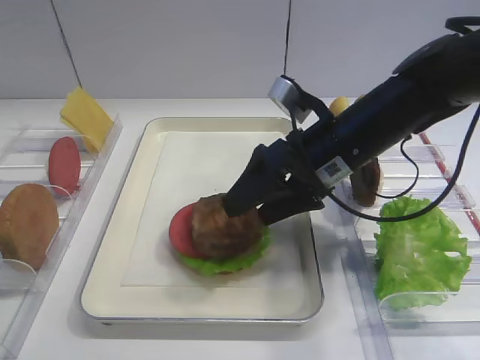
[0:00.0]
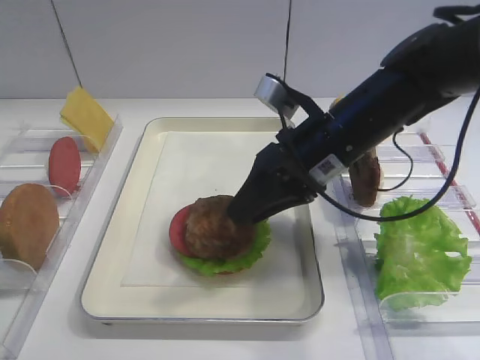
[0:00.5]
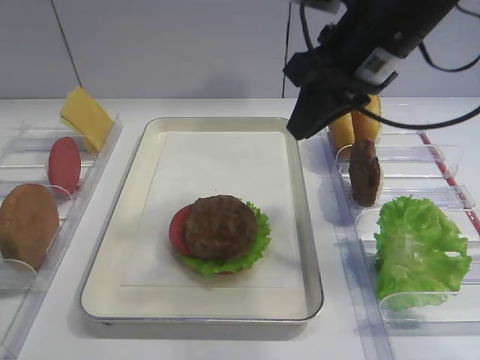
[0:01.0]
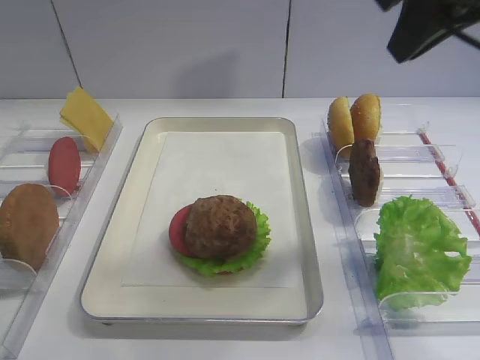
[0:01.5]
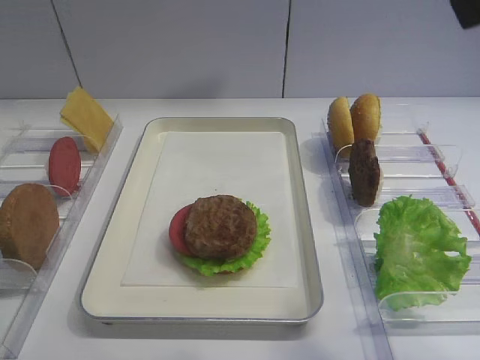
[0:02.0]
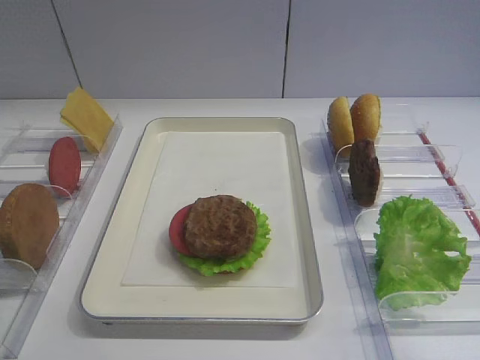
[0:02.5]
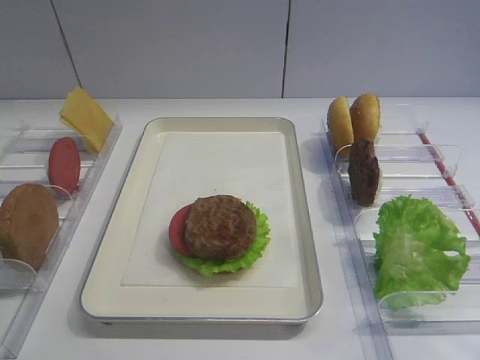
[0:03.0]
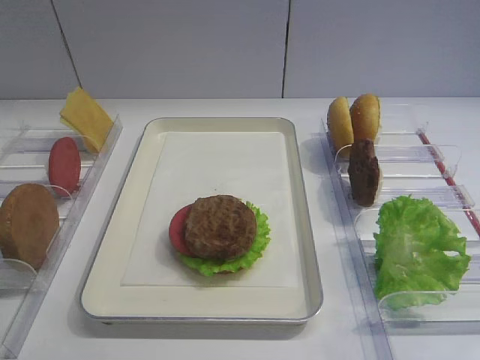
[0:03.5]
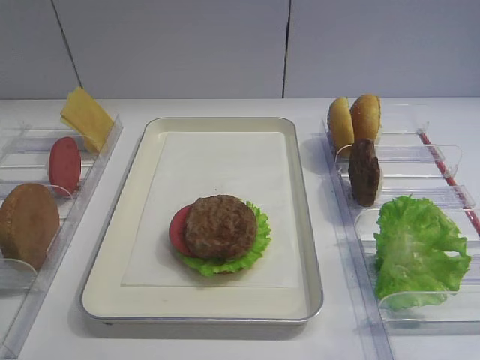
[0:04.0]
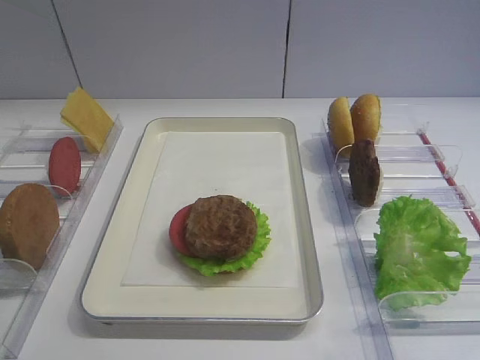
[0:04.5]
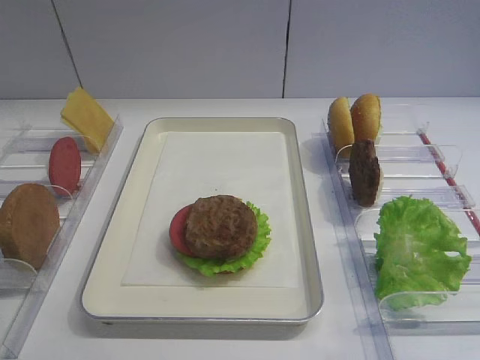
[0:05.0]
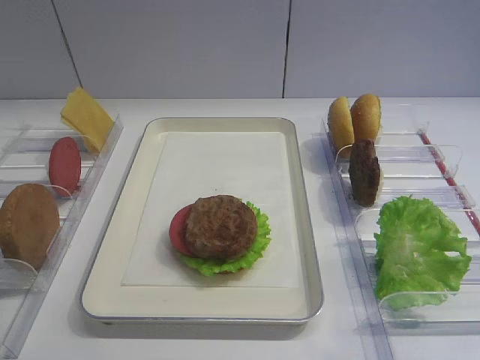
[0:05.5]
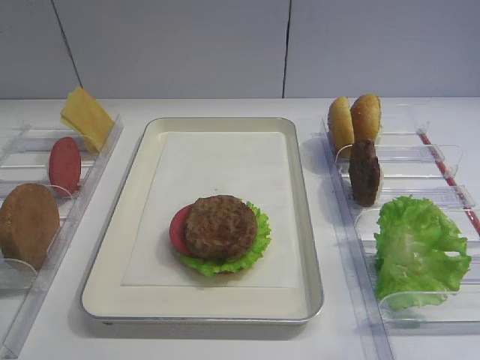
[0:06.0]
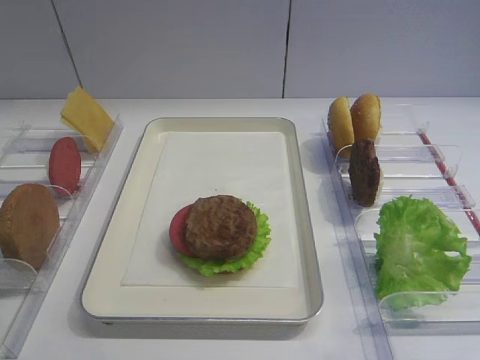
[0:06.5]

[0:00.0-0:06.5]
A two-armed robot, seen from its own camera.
0:00.0 to 0:02.0: The right gripper travels upward and backward by approximately 30 cm, and closes, then opens again.
0:02.0 to 0:04.5: The right gripper is displaced backward and downward by approximately 25 cm.
0:04.5 to 0:06.5: Both grippers stay put.

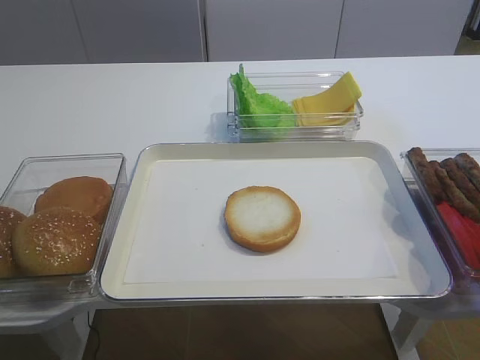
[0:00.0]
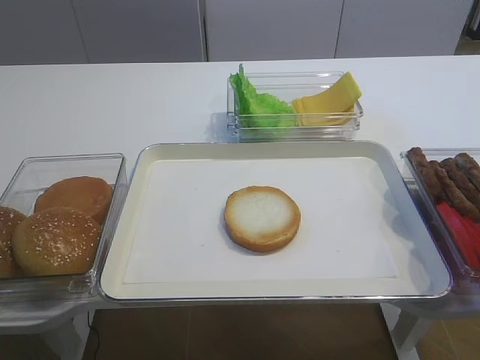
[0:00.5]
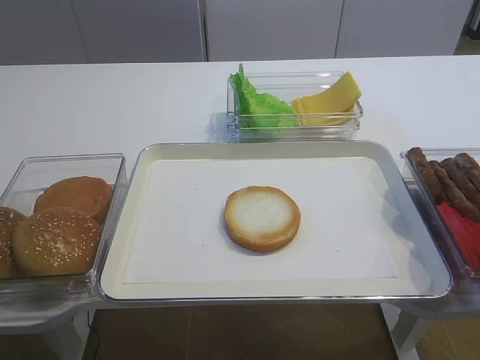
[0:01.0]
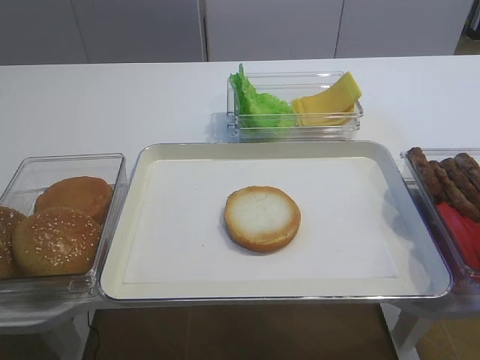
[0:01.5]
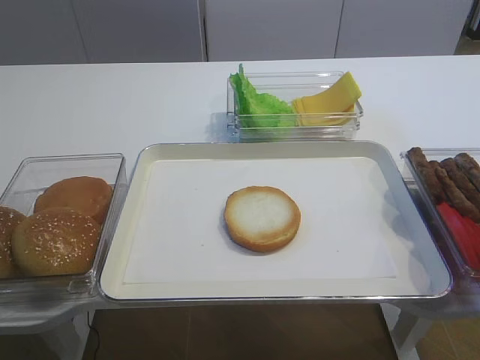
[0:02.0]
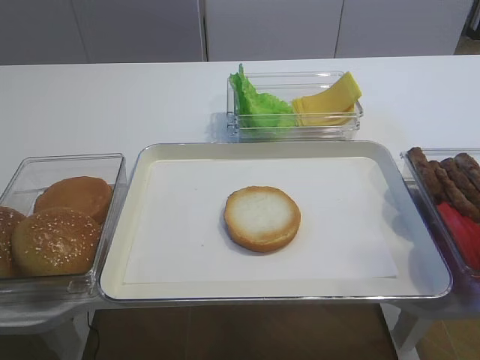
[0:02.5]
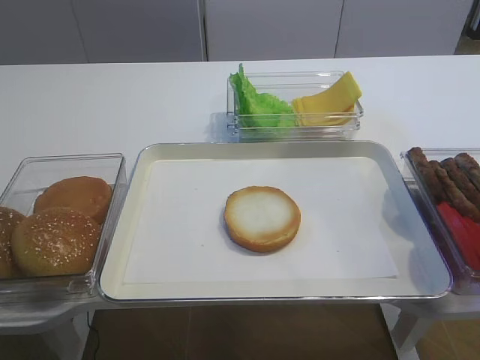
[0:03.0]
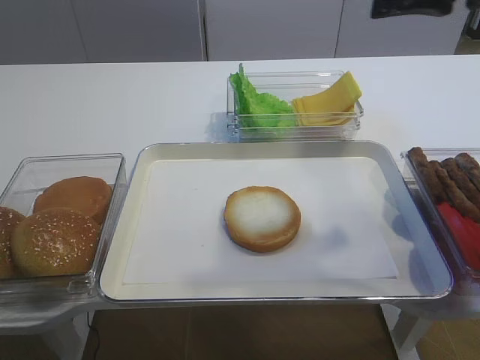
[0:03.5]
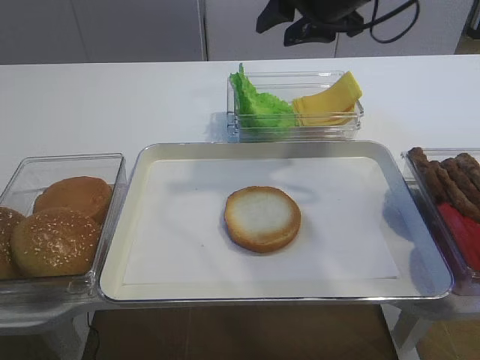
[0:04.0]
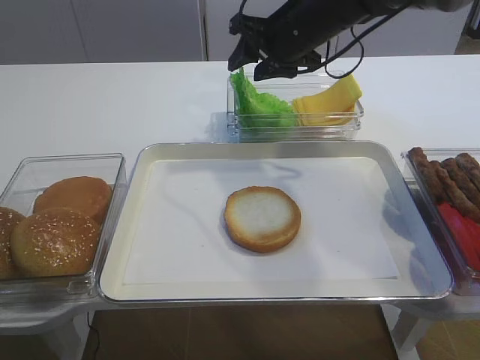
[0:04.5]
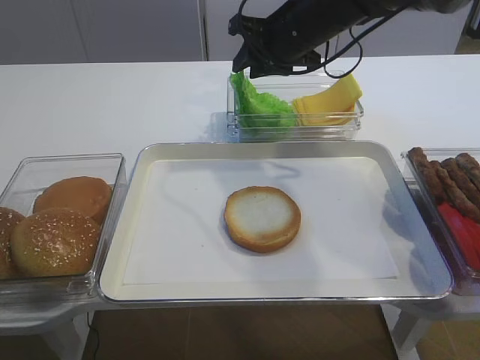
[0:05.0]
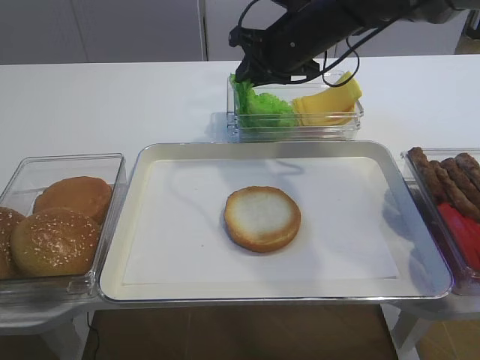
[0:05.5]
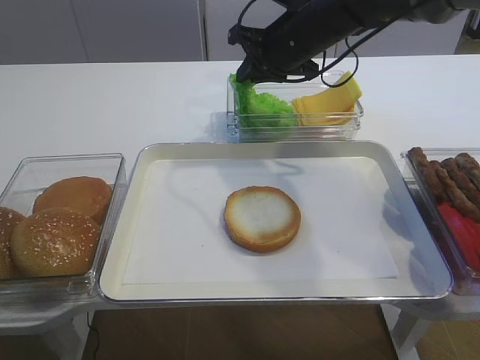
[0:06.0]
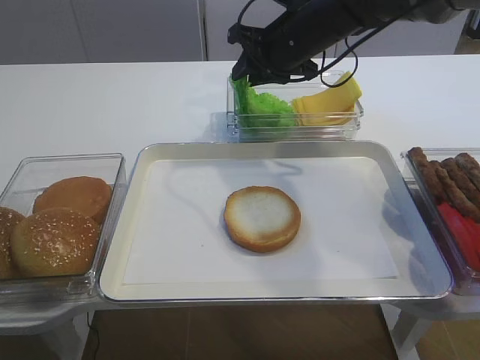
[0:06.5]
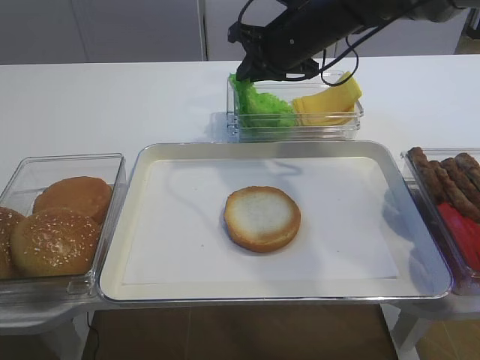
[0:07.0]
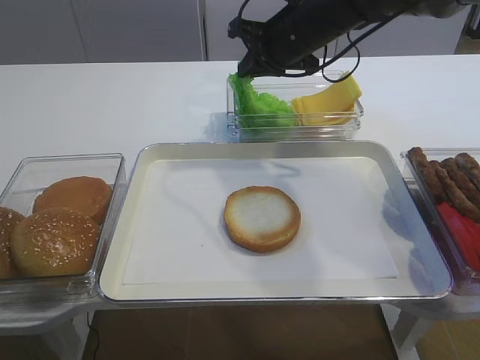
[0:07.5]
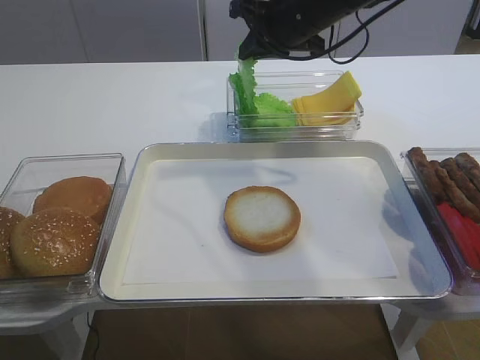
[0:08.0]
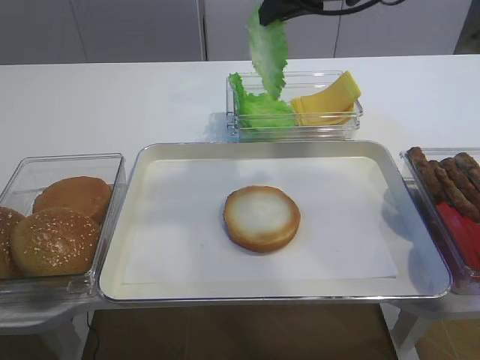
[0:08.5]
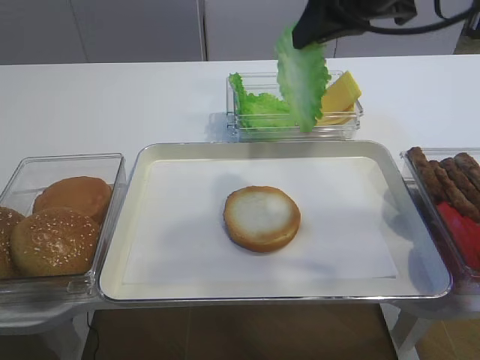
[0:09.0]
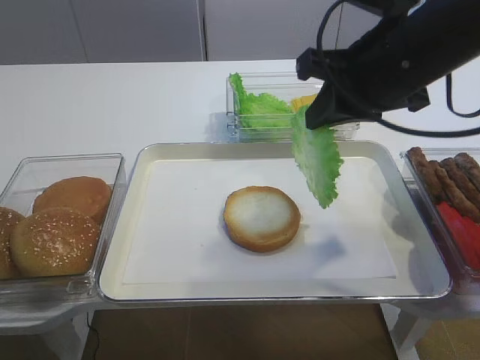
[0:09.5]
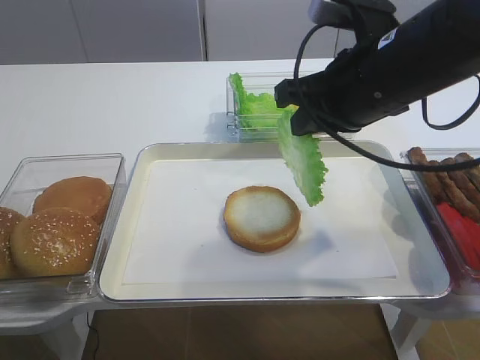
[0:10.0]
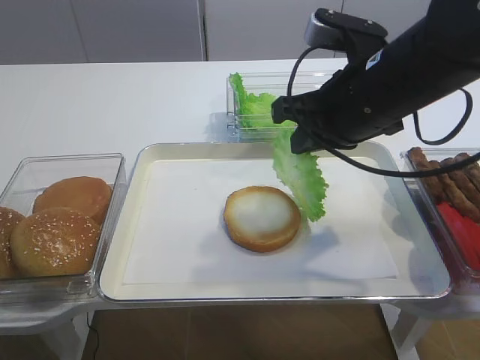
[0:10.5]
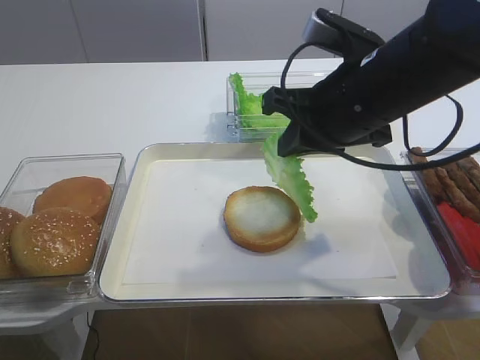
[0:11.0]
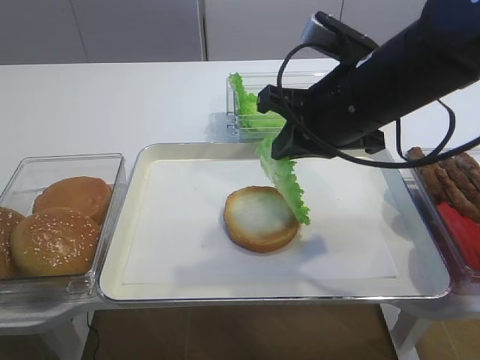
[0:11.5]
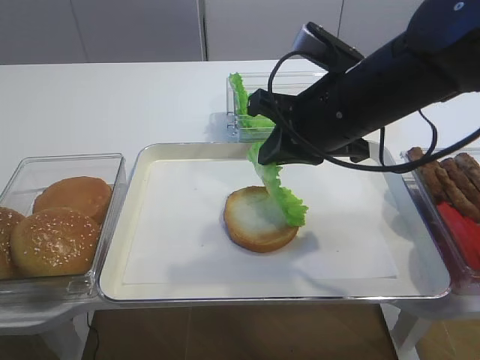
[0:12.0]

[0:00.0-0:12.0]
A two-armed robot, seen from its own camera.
Step, 0:00.0 to 0:08.0: Pick up the lettuce leaf with the right gripper.
0:02.0 to 0:04.0: The right gripper moves forward, about 40 cm, and opens its fingers.
0:04.0 to 0:06.0: The right gripper heads downward, covering approximately 5 cm, and closes its fingers.
0:06.0 to 0:08.0: The right gripper opens, then closes once more.
0:08.0 to 0:10.0: The right gripper heads backward, covering some 15 cm.
0:10.0 to 0:12.0: The grippers stay close to where they were, moving slightly.

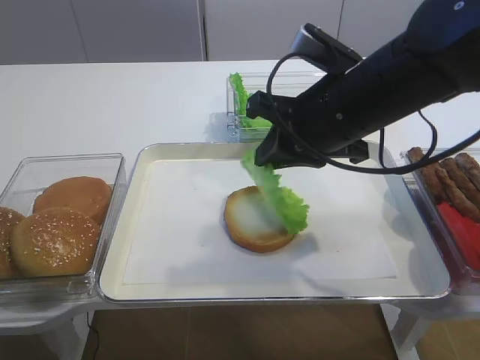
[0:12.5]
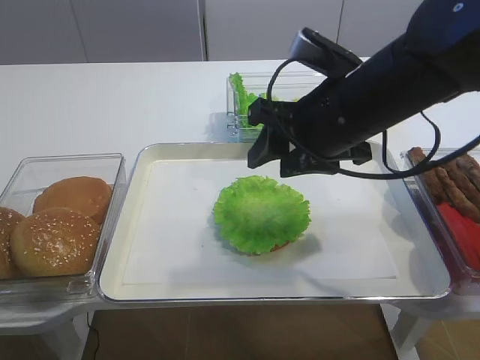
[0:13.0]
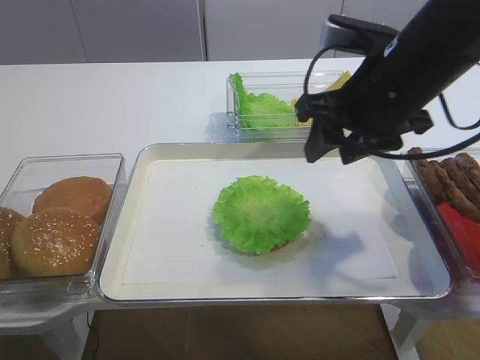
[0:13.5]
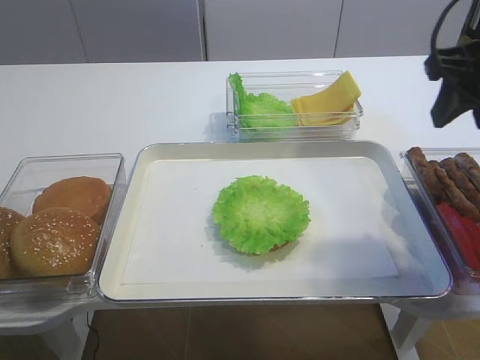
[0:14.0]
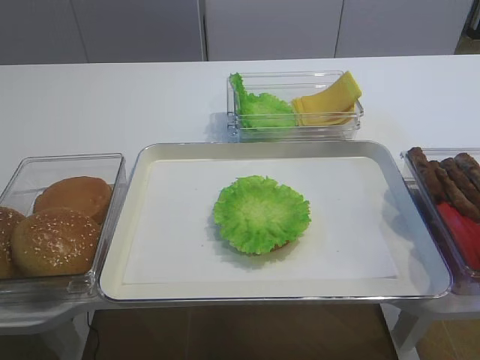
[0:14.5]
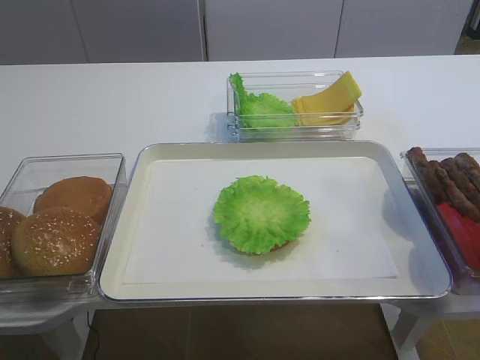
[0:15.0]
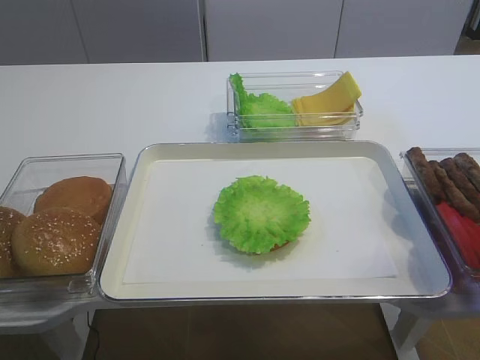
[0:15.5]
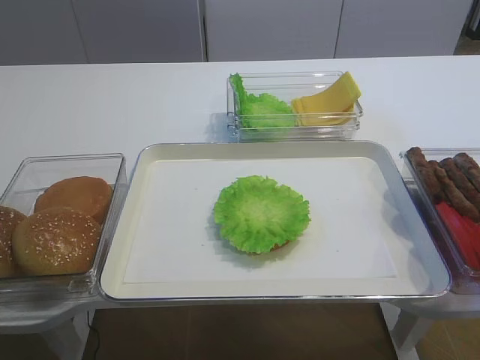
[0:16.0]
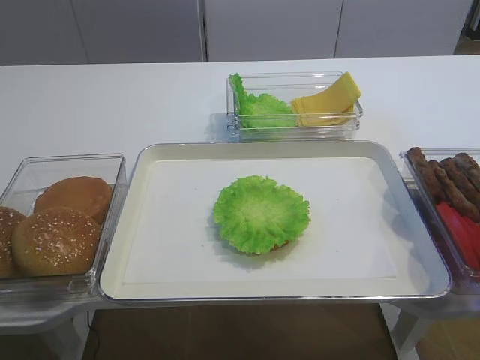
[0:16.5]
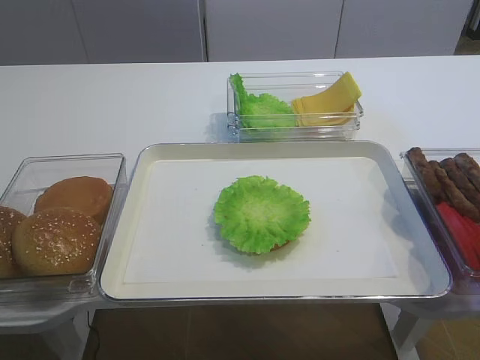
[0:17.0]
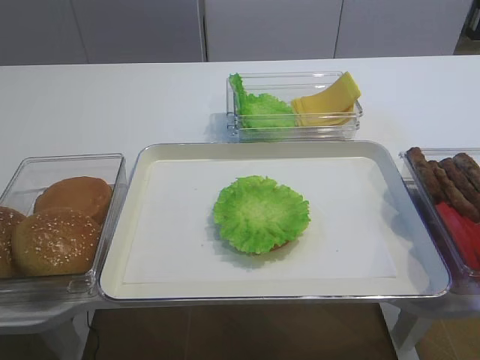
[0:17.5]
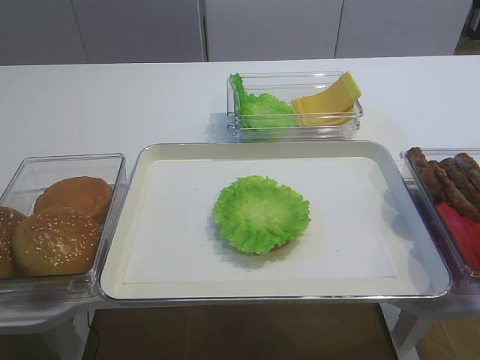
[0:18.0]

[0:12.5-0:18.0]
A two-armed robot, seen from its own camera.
0:12.5 to 0:14.5: The right gripper shifts approximately 20 cm to the right, upward and backward, and opens.
0:14.5 to 0:16.0: The right gripper heads backward, covering approximately 25 cm.
